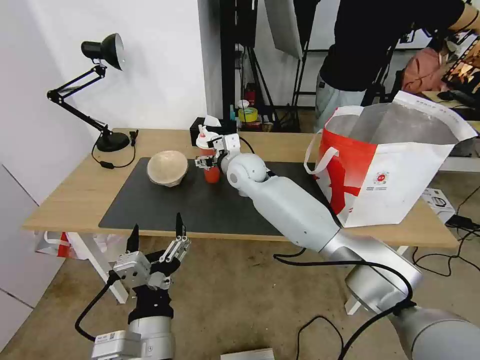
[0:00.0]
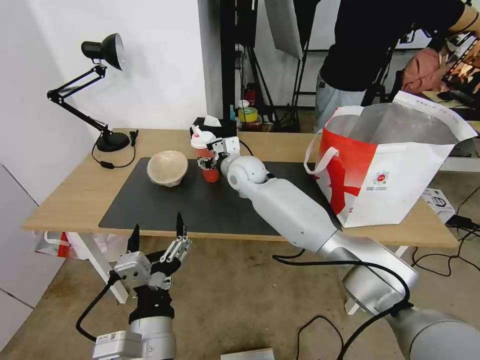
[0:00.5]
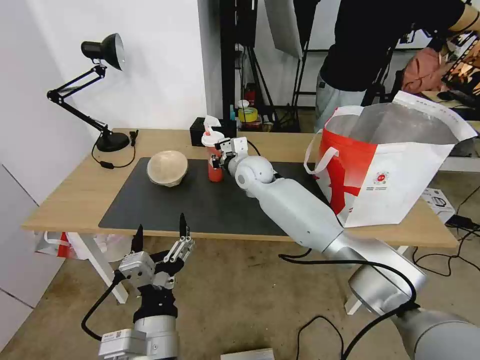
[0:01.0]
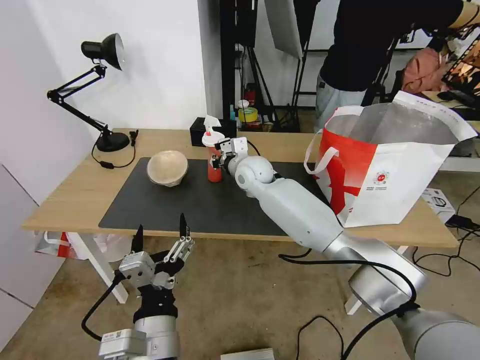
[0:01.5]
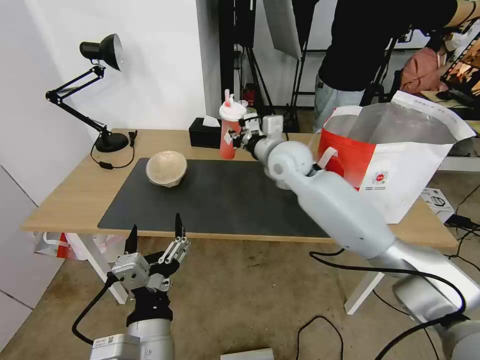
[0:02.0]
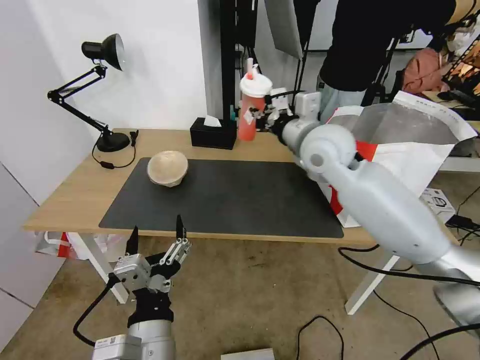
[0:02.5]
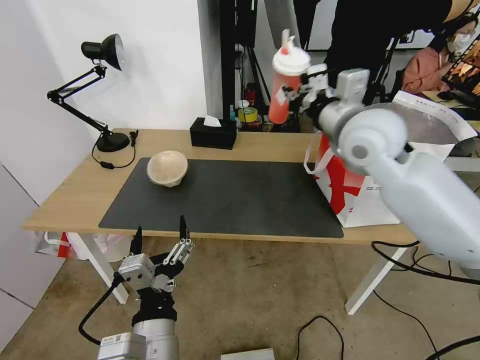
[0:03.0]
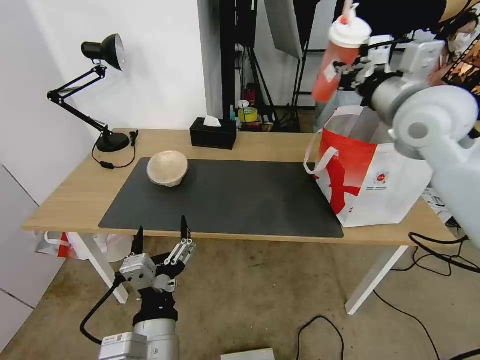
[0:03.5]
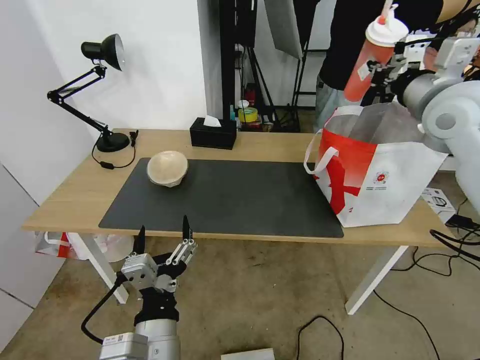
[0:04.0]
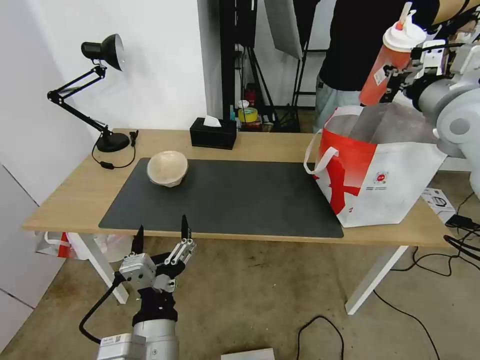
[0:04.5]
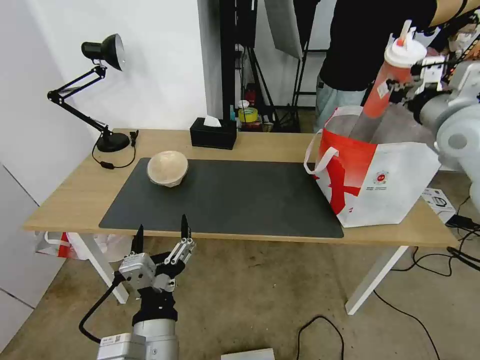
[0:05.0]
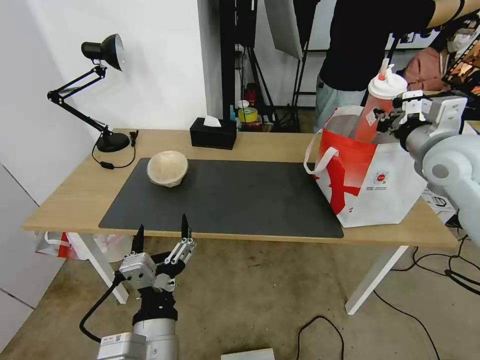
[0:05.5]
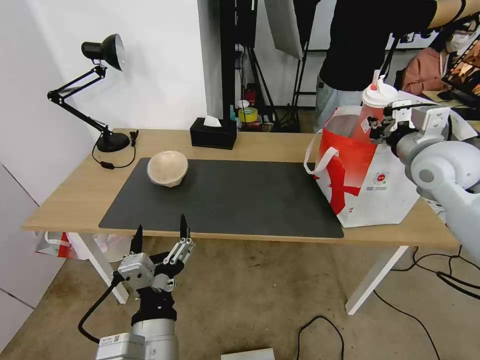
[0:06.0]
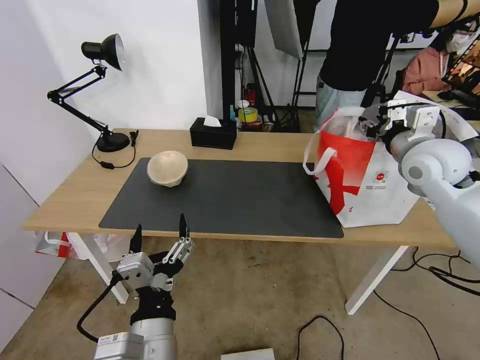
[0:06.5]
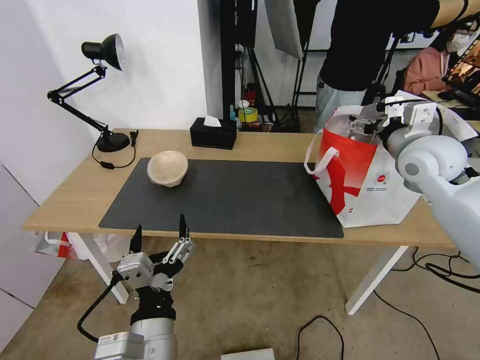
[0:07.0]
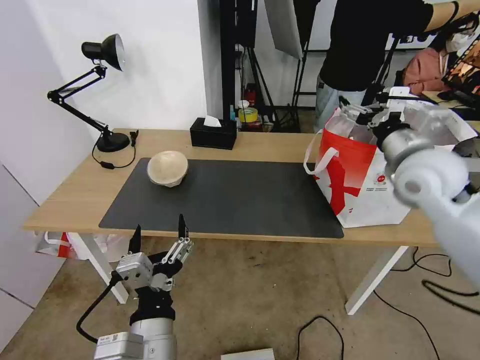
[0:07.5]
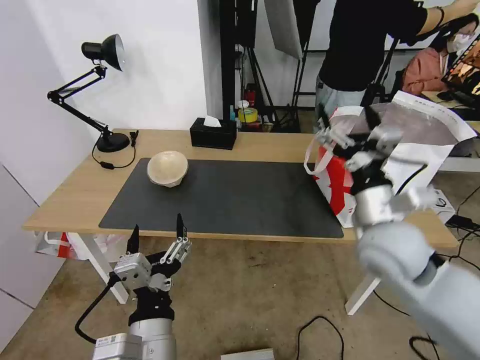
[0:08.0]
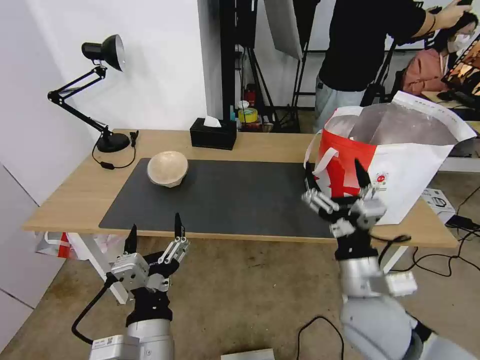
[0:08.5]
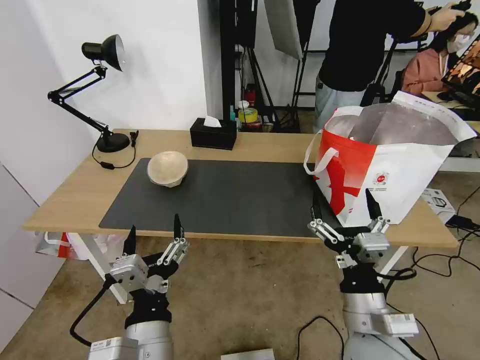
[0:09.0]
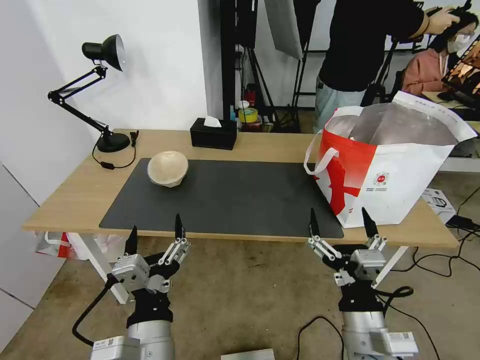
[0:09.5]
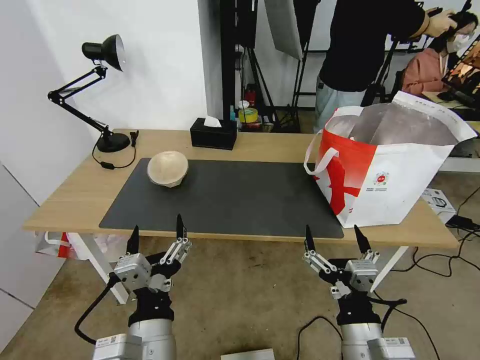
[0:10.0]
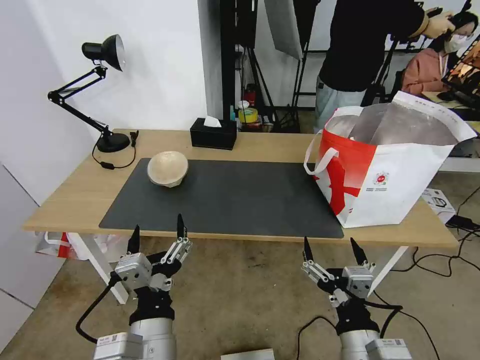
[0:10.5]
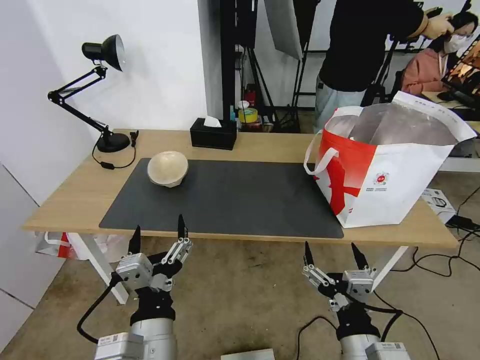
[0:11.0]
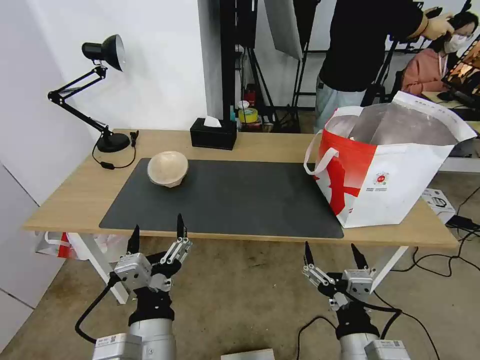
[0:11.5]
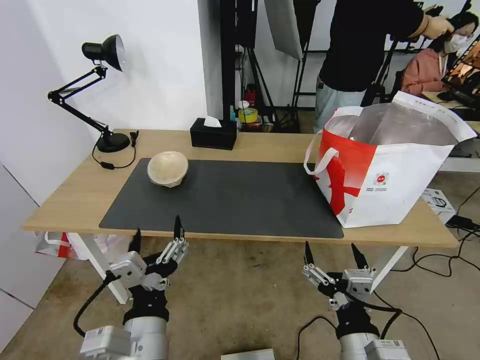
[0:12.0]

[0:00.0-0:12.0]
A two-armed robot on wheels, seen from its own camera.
Task of the whole recording: Pick up the trash from the table and place it into the takeout bag.
0:00.0 to 0:02.0: The right gripper goes roughly 10 cm to the right and upward, and closes its fingers.
0:02.0 to 0:04.0: The right gripper is displaced to the right and upward by roughly 30 cm.
0:04.0 to 0:06.0: The right gripper travels downward by some 10 cm.
0:06.0 to 0:08.0: The right gripper goes approximately 20 cm backward, to the left and downward, and opens up.
0:08.0 to 0:10.0: The right gripper shifts about 20 cm backward and downward.
0:10.0 to 0:12.0: The grippers stay close to where they were, moving slightly.

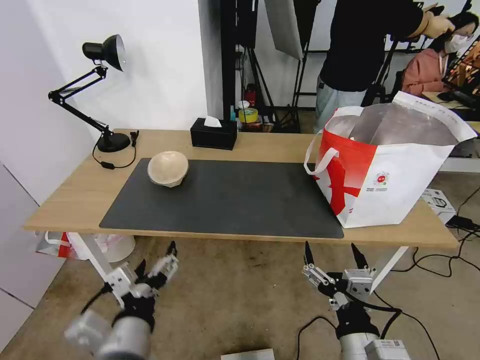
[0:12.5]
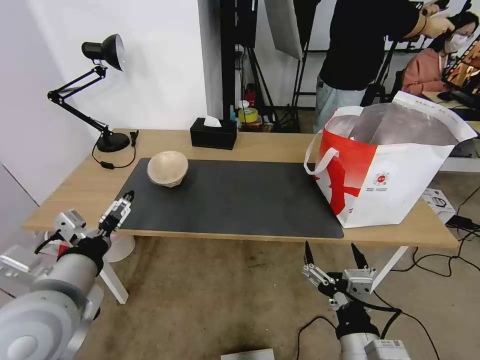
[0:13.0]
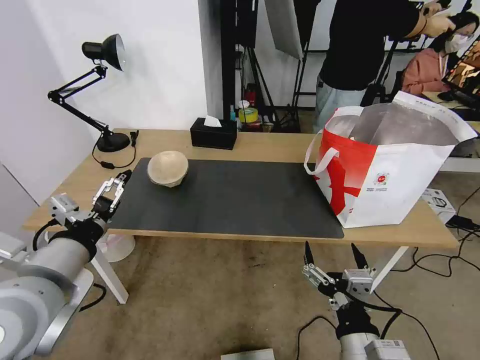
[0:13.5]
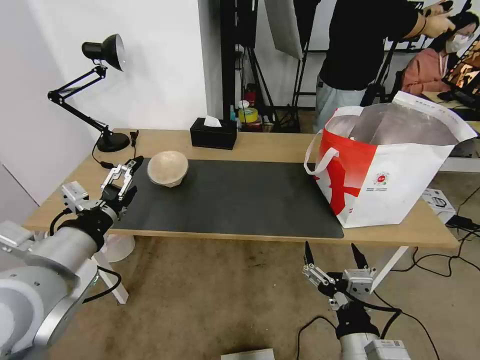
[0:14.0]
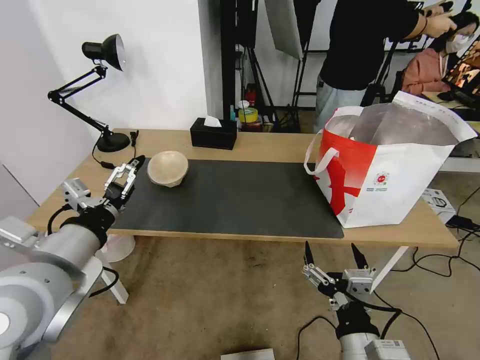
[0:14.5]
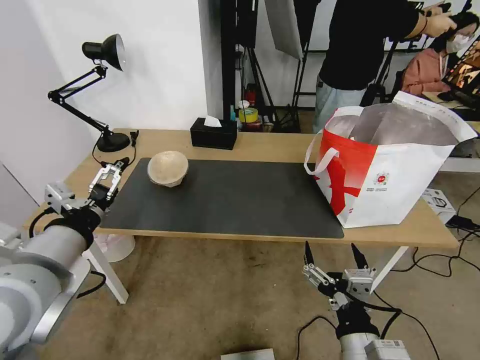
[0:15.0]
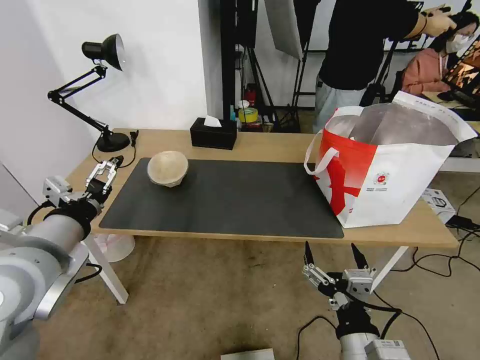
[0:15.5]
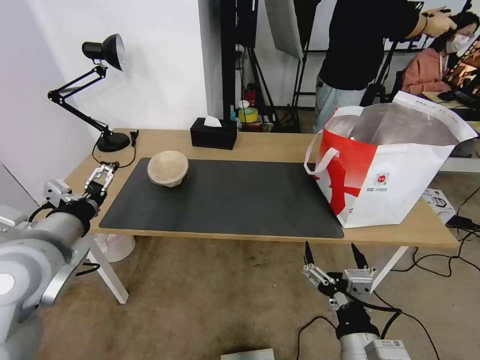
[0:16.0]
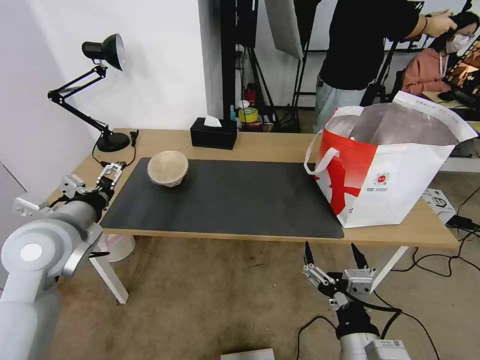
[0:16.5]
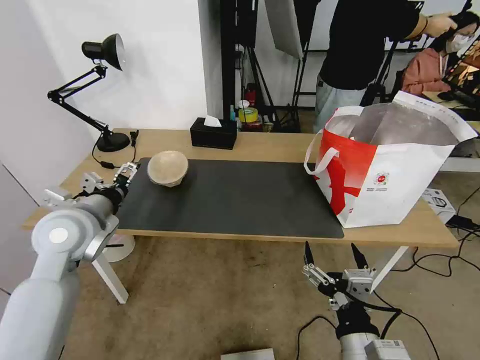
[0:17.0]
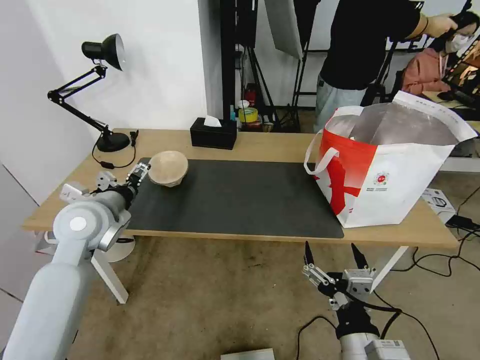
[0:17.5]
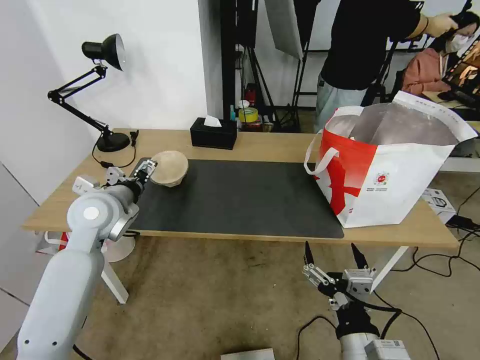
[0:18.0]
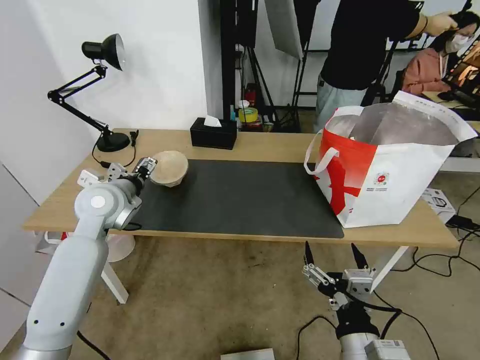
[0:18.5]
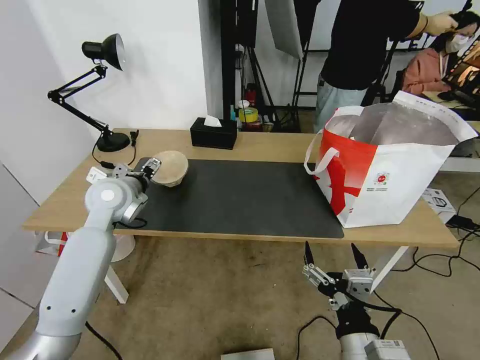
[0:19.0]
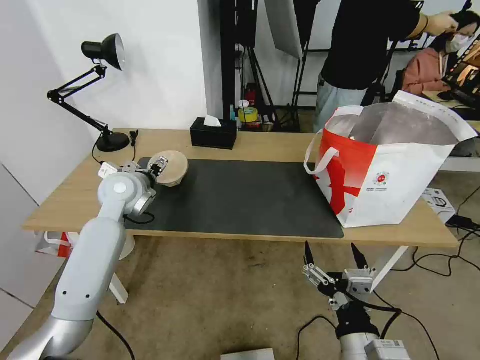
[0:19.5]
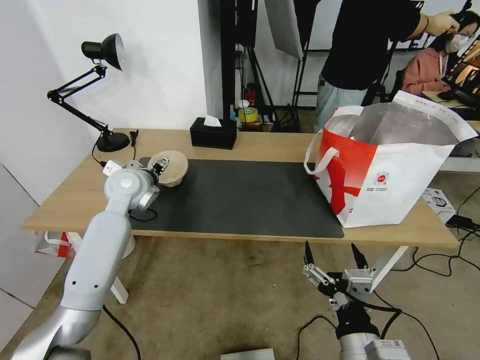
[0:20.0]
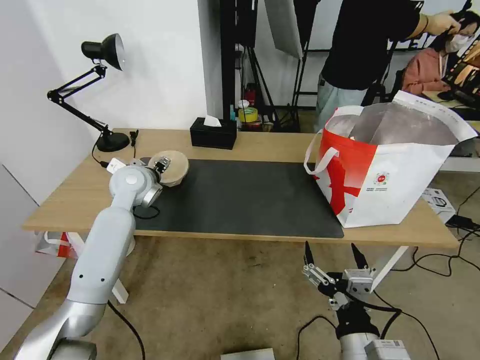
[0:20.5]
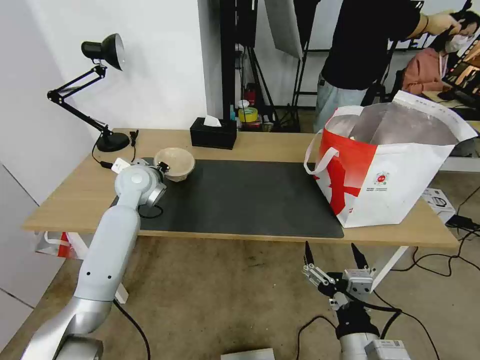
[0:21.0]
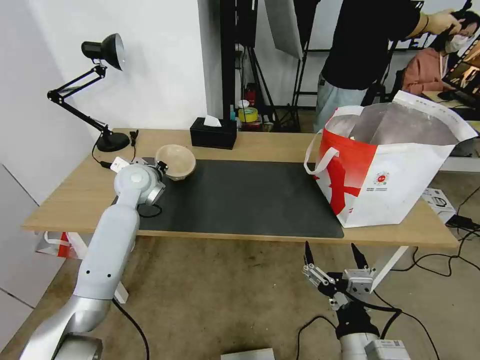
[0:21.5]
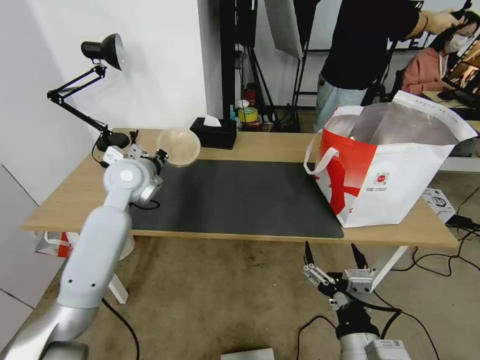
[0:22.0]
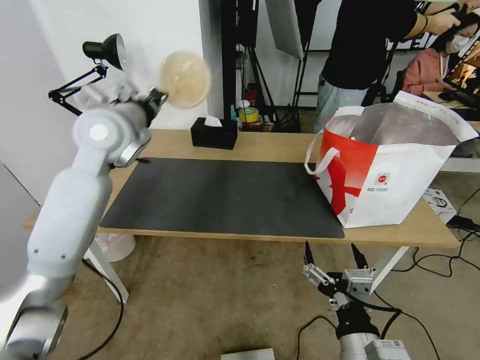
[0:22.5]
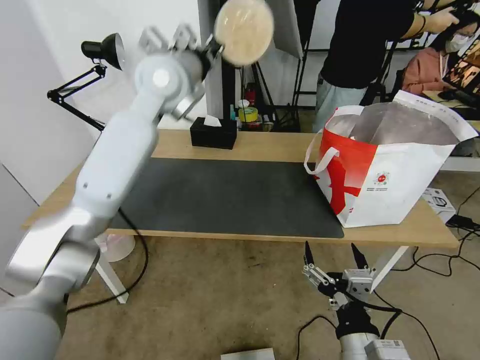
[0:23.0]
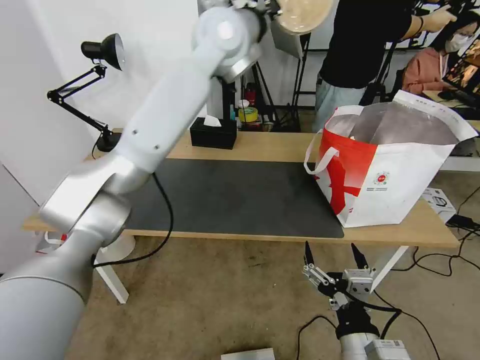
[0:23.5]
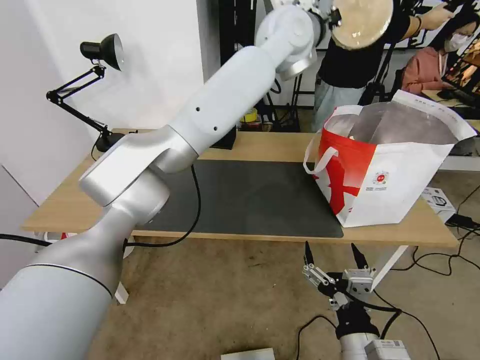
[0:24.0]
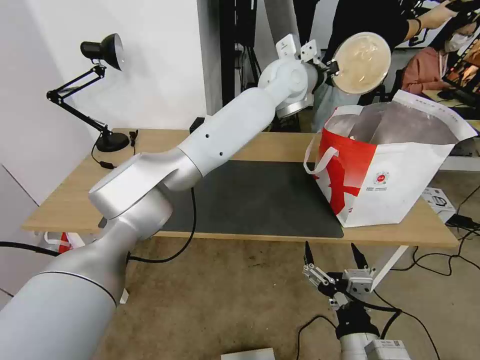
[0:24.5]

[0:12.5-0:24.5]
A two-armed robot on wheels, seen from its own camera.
Task of the whole recording: Pick up the trash from the table and place it into the takeout bag.
0:12.5 to 0:14.5: The left gripper moves upward, forward and to the left, about 15 cm.
0:14.5 to 0:16.5: The left gripper goes about 10 cm forward.
0:16.5 to 0:18.5: The left gripper travels forward by some 15 cm.
0:18.5 to 0:20.5: The left gripper heads forward, covering some 10 cm.
0:20.5 to 0:22.5: The left gripper goes about 15 cm upward, and closes up.
0:22.5 to 0:24.5: The left gripper is displaced to the right by approximately 30 cm.

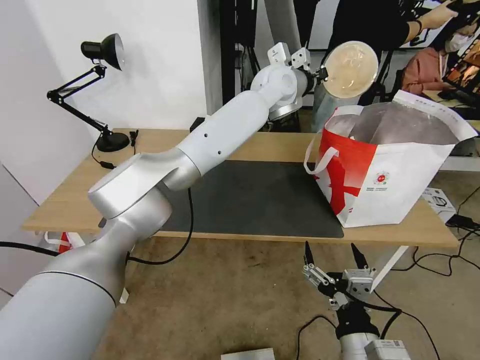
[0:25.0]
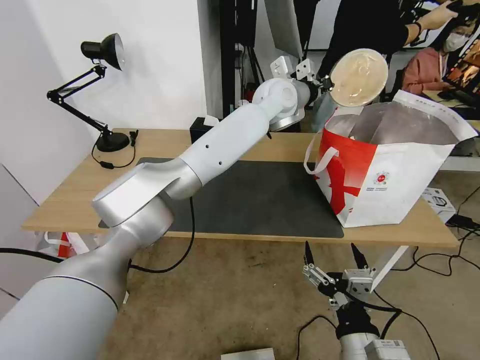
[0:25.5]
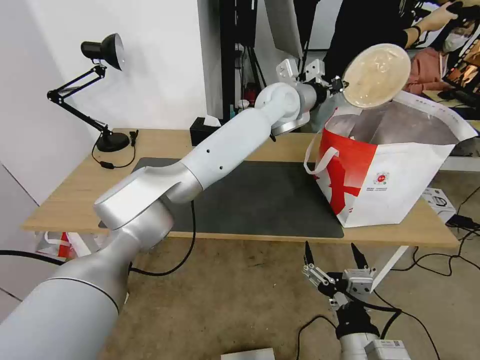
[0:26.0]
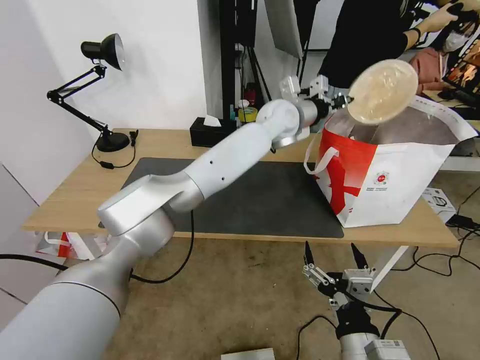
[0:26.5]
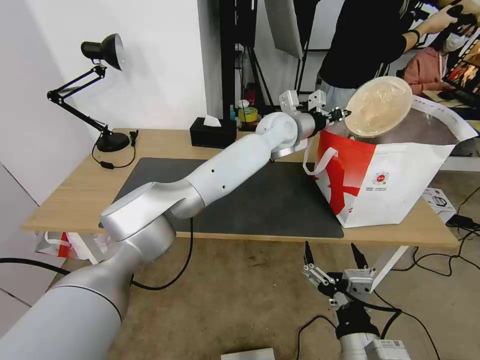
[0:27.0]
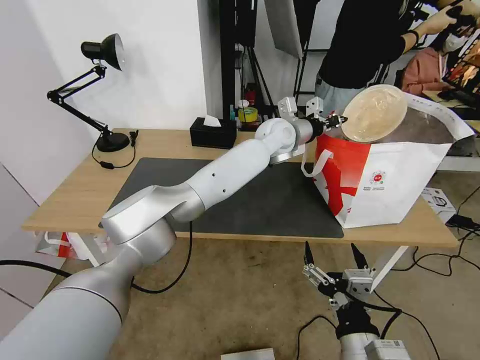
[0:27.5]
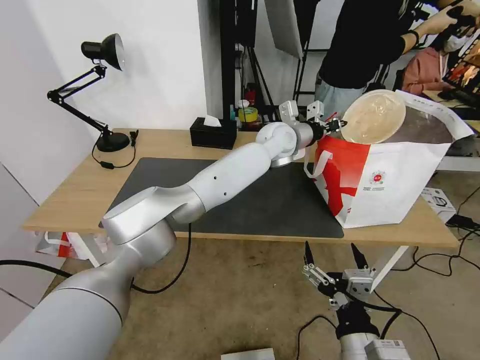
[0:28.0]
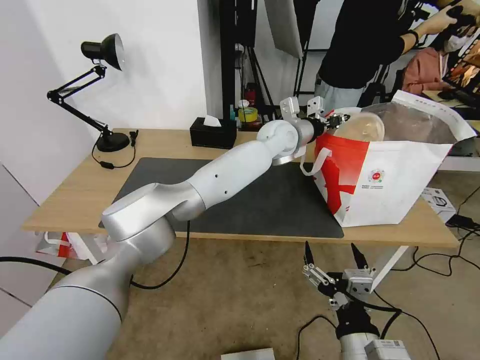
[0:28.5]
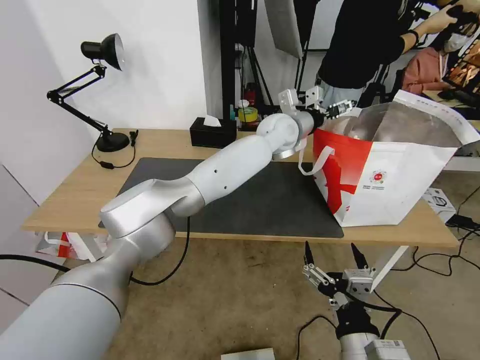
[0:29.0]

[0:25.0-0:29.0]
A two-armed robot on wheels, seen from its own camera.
Task of the whole recording: Pick up the trash from the table and place it into the takeout bag.
0:25.0 to 0:27.0: The left gripper shifts about 10 cm downward.
0:27.0 to 0:29.0: The left gripper opens up.
